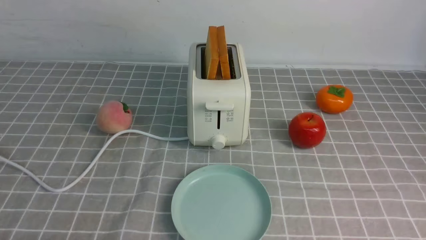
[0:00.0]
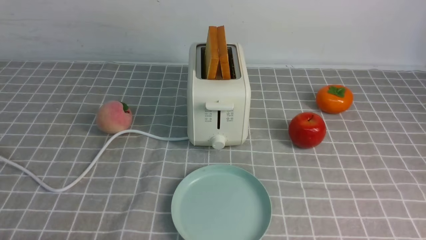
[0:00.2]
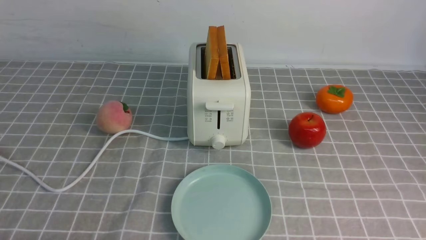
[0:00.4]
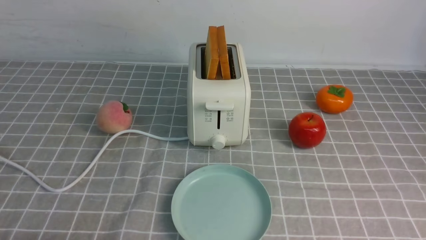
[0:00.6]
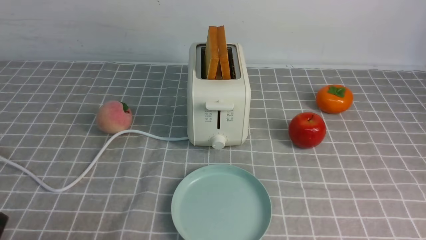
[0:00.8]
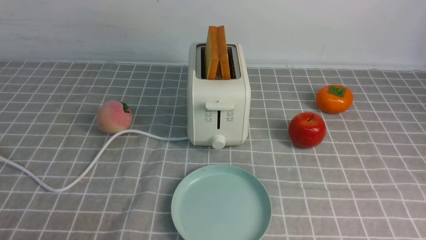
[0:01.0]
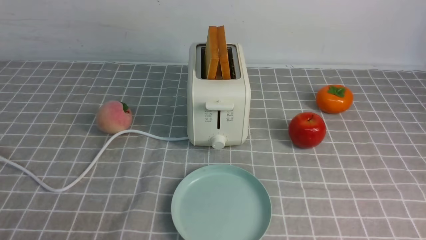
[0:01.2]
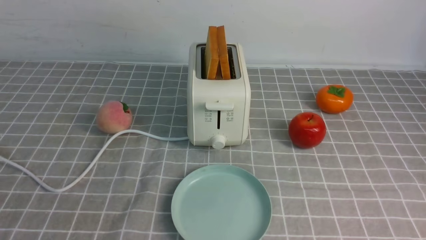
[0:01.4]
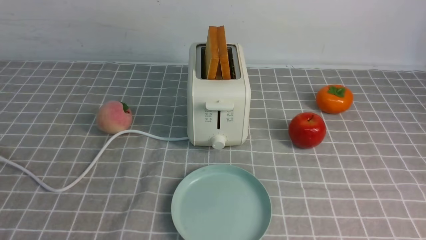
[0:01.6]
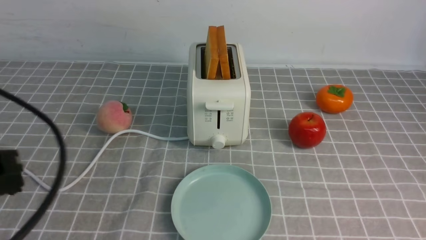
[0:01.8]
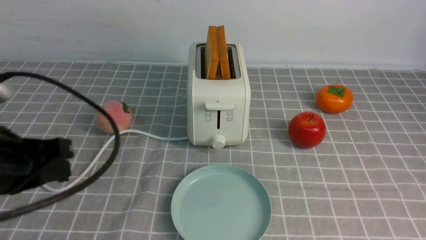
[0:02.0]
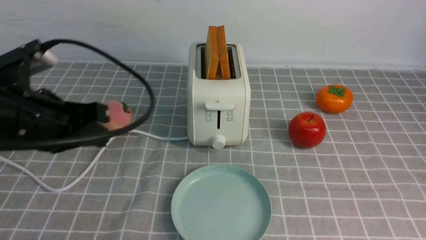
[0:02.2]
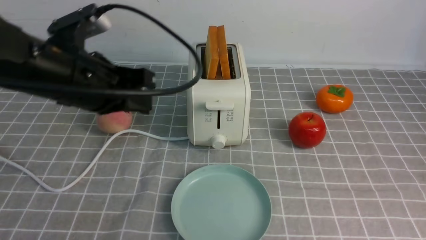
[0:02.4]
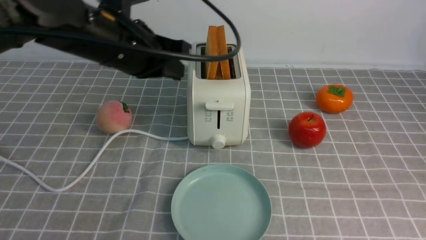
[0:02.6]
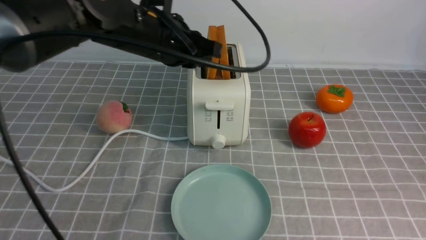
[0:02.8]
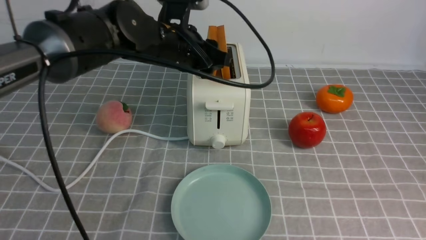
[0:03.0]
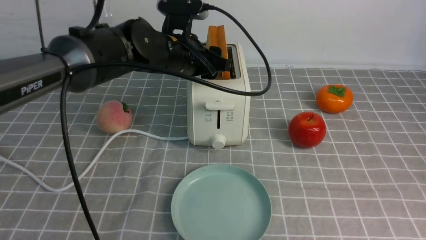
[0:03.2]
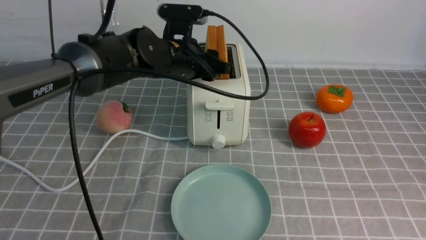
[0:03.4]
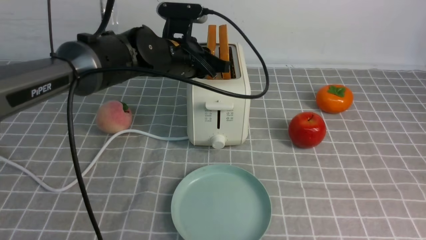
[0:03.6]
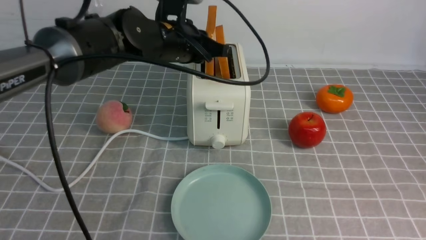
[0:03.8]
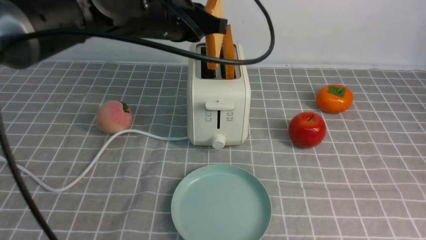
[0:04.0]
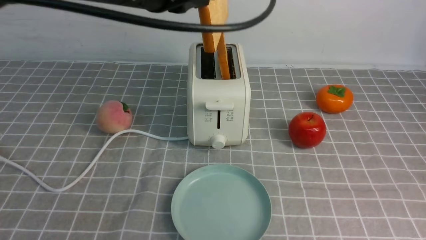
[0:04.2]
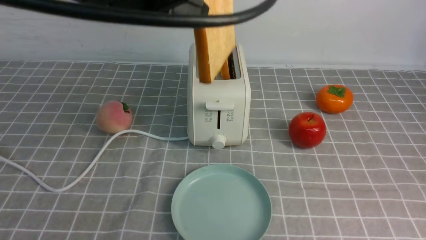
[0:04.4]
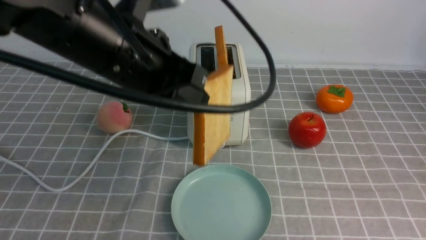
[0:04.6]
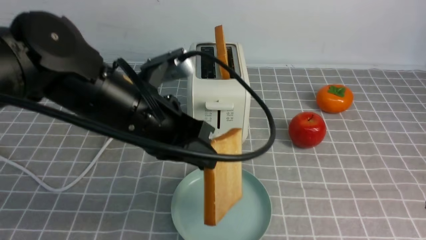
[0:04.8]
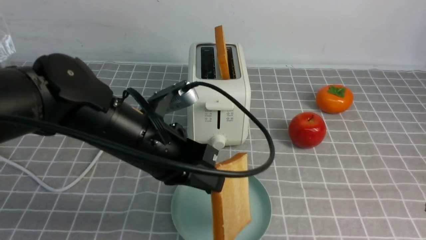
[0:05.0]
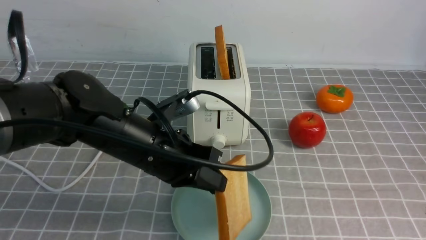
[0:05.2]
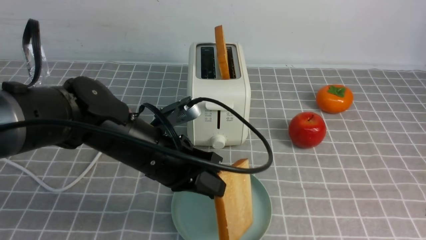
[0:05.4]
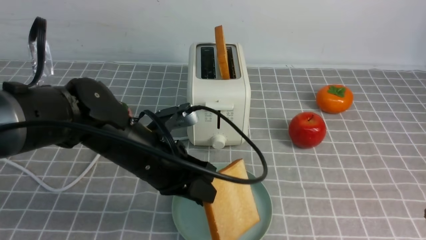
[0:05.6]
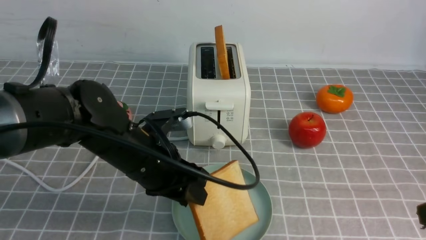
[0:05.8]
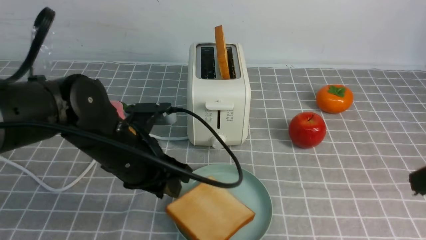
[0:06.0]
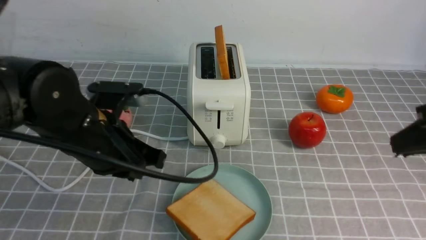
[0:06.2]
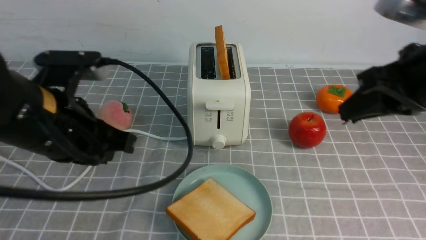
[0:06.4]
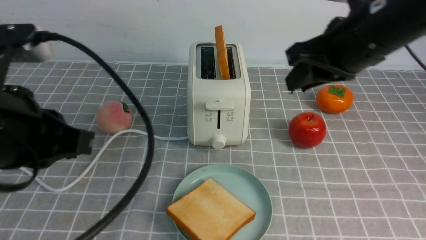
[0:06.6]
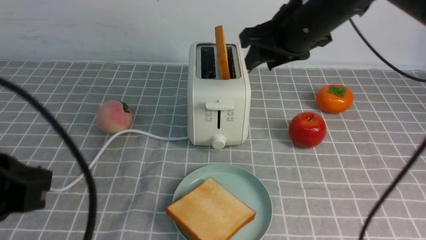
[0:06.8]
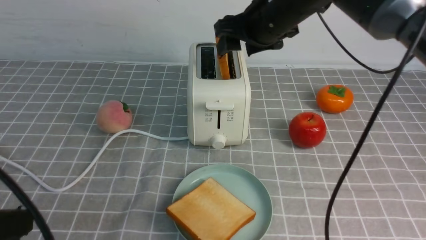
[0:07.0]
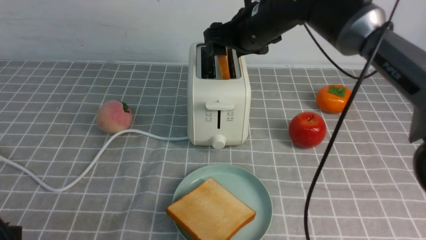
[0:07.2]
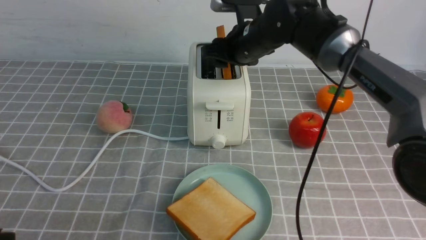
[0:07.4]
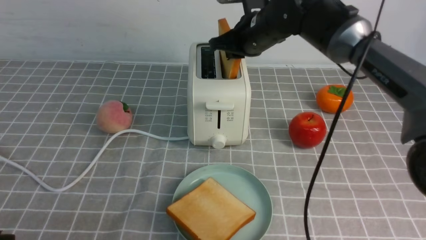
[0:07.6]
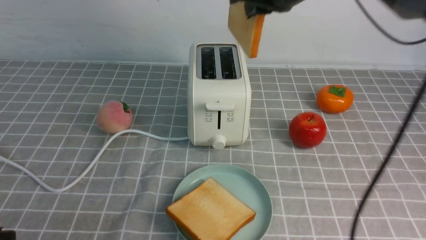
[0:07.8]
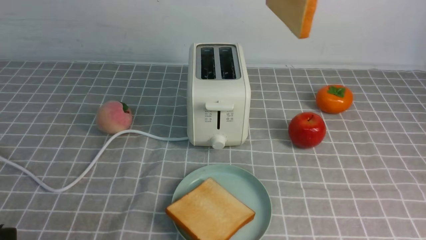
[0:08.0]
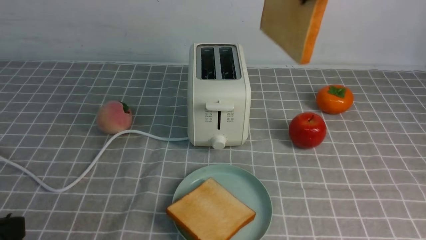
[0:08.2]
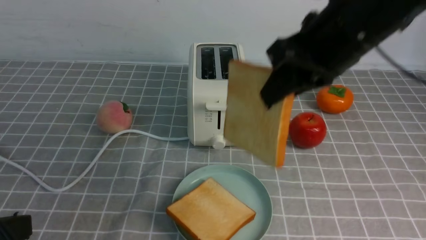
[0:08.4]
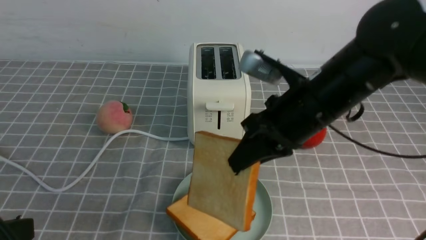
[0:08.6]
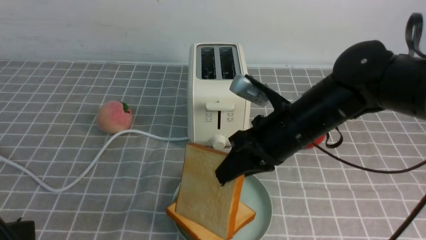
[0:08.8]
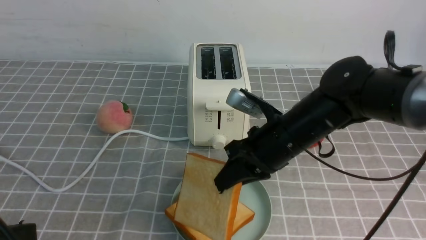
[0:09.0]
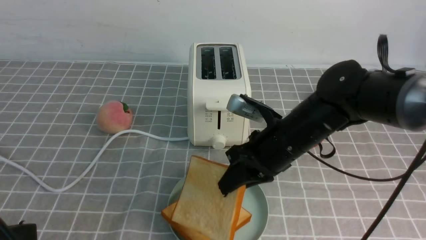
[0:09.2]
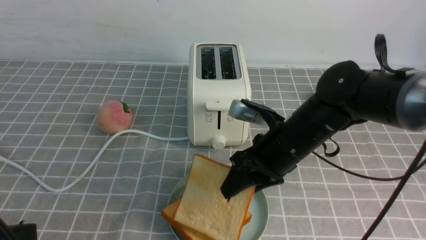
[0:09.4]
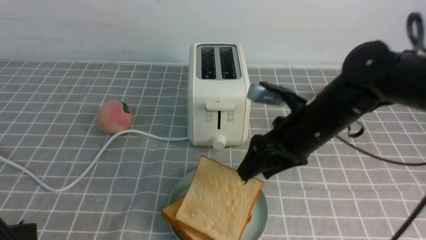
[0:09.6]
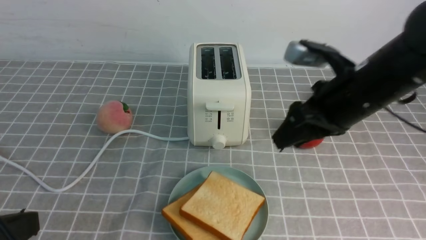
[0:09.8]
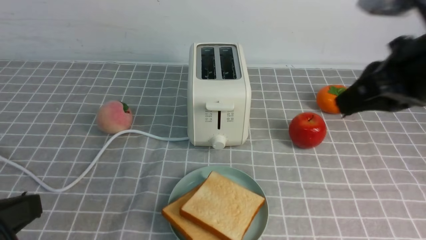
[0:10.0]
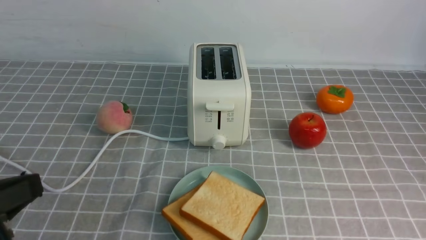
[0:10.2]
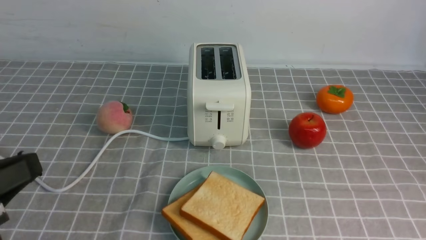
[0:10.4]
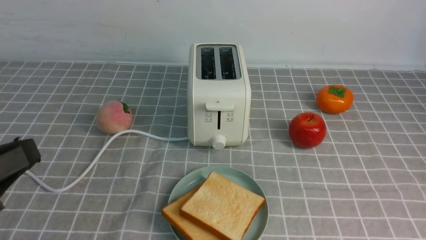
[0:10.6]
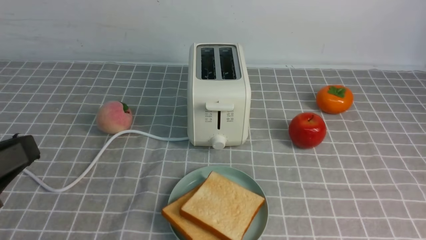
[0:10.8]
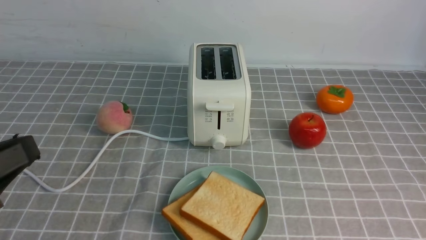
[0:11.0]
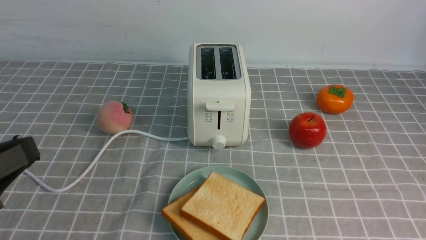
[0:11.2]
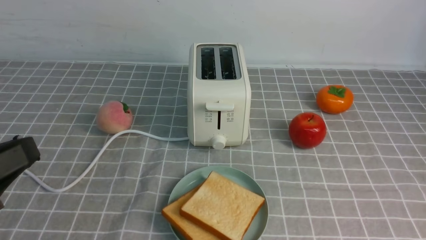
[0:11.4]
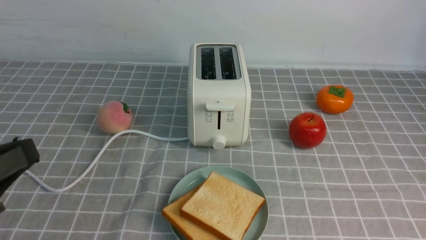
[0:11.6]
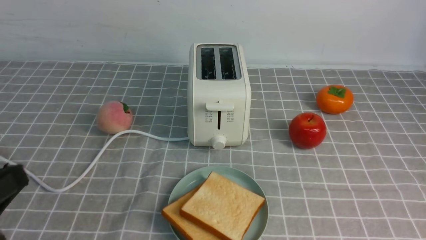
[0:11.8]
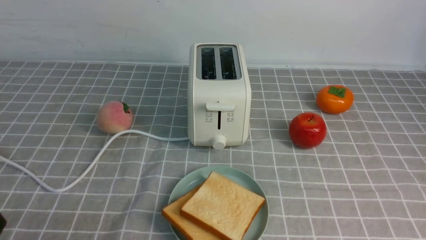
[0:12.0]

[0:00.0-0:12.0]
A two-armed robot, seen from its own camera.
Task of the whole recording: take toasted bread from bread machine on grey coffee table place on plate.
Step, 0:00.0 to 0:03.8: use the left arm to take out a slice of bread.
Step, 0:04.0 to 0:06.0: use the left arm to put a slice of bread into the empty plate.
Step, 0:06.4 to 0:07.8: use the right arm to take out a slice of bread.
Step, 0:08.0 to 0:09.8: use the right arm to put a slice of bread into the plate.
0:01.6 to 0:03.0: The left gripper is displaced forward and to the right by about 35 cm, and opens up. The right gripper heads upward and forward, covering roughly 15 cm, and closes.
0:03.0 to 0:04.4: The left gripper heads backward and upward, covering roughly 15 cm, and closes its fingers.
0:04.4 to 0:06.0: The left gripper goes approximately 15 cm downward, and opens up.
0:06.0 to 0:07.6: The right gripper is displaced forward and to the left by about 35 cm, and opens and closes again. Meanwhile the left gripper shifts some 25 cm backward and to the left, and closes its fingers.
0:07.6 to 0:09.0: The right gripper heads backward and downward, covering some 20 cm.
0:09.0 to 0:10.4: The right gripper shifts some 40 cm backward, to the right and upward, and opens, then closes once more.
0:10.4 to 0:12.0: The left gripper goes about 10 cm downward.

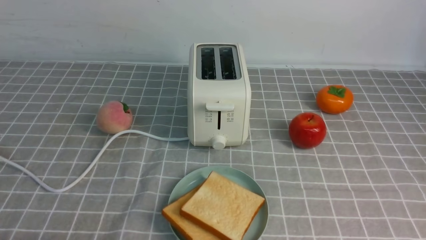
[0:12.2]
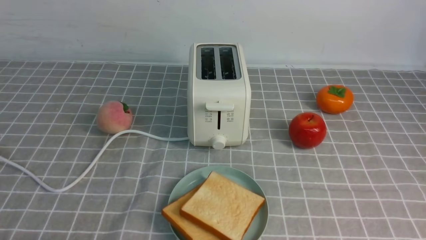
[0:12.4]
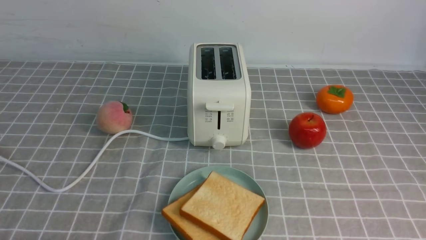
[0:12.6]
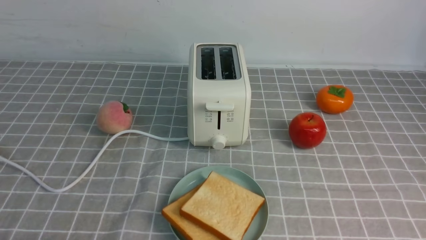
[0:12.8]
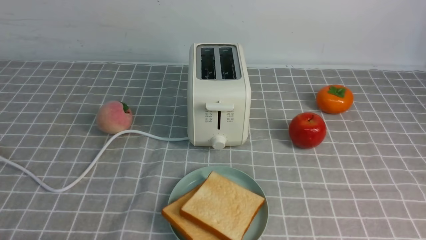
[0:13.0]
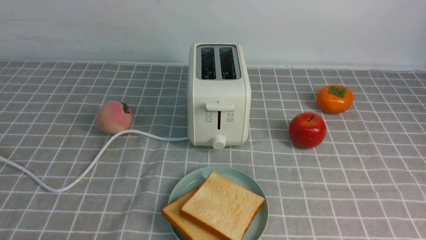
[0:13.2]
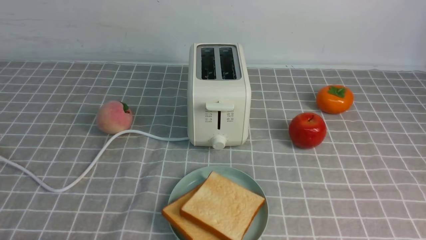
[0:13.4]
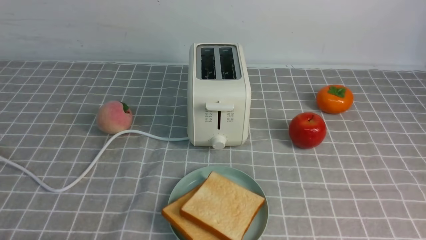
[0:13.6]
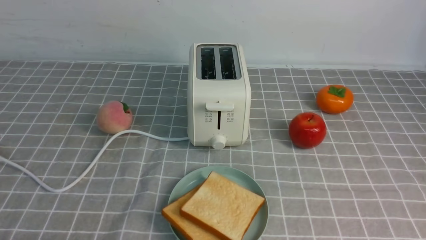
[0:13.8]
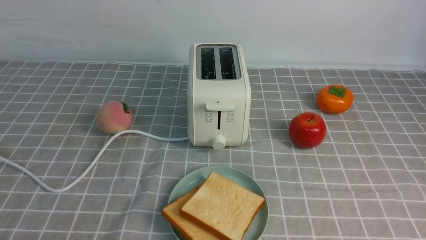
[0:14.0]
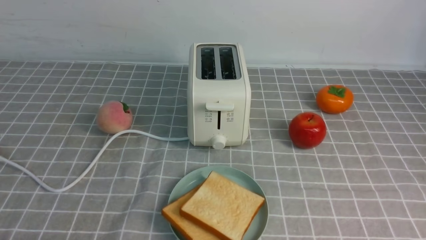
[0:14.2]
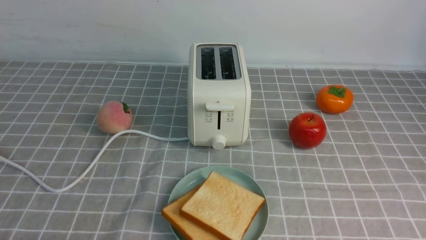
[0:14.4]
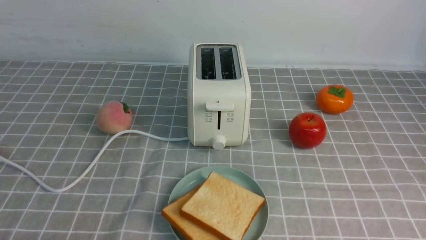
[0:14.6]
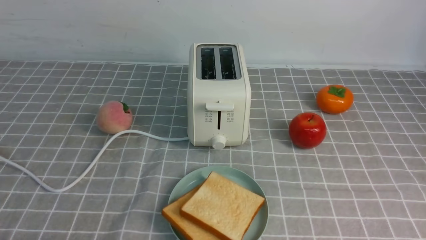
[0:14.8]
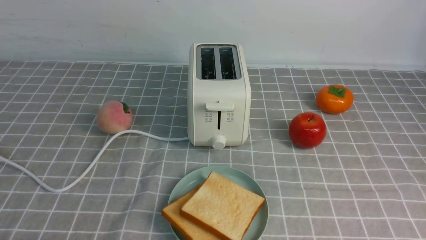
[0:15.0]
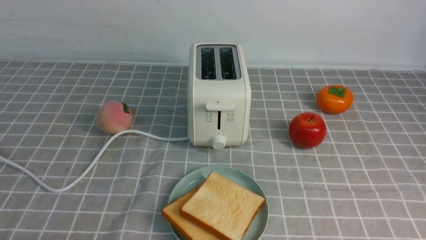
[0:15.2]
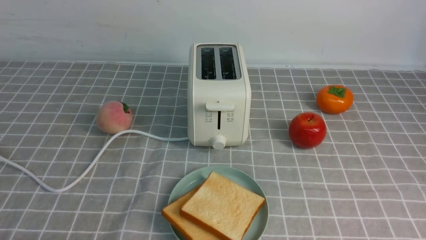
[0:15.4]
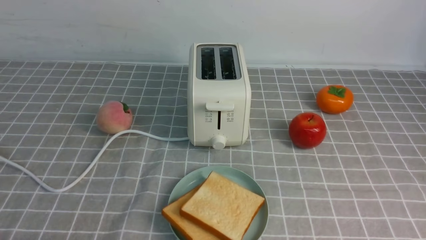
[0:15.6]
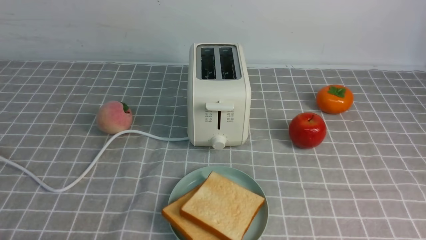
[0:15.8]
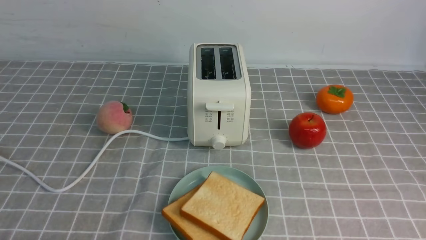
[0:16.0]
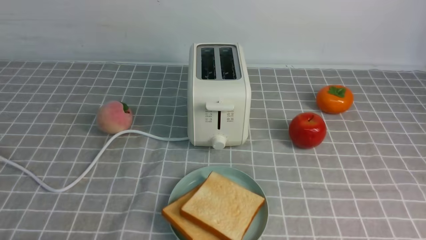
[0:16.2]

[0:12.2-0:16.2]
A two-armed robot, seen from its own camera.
Task of the whole recording: take toasted bread from bread machine on grey coffee table place on plate.
0:14.8 to 0:16.2: Both grippers stay put.
